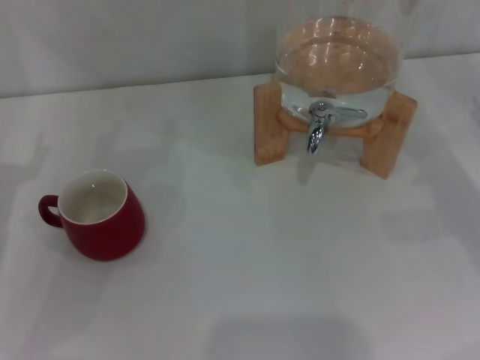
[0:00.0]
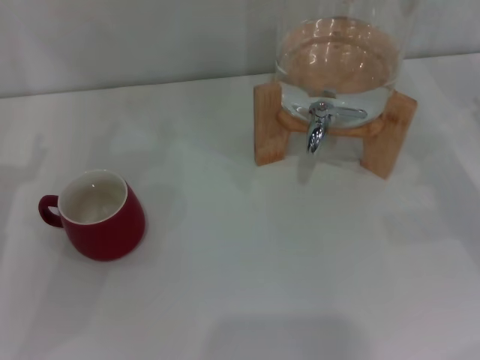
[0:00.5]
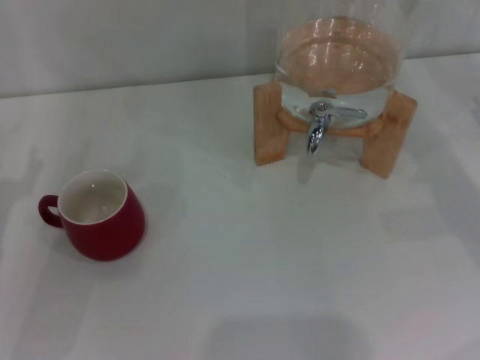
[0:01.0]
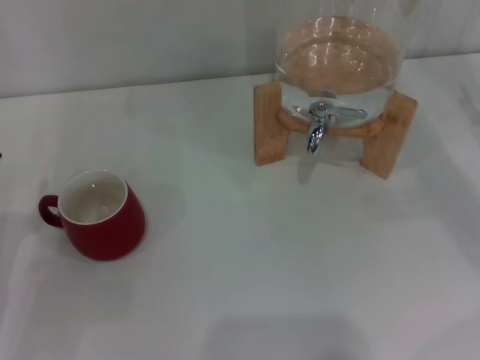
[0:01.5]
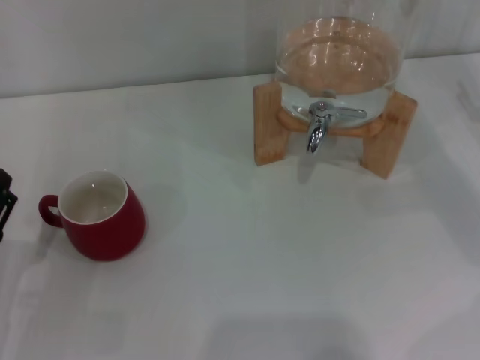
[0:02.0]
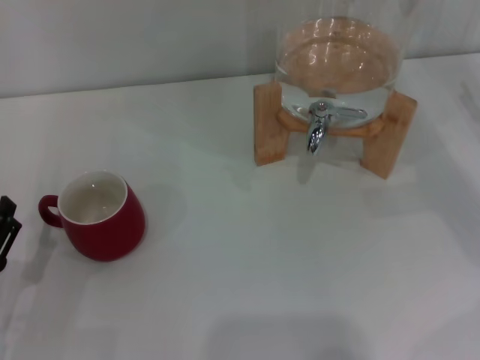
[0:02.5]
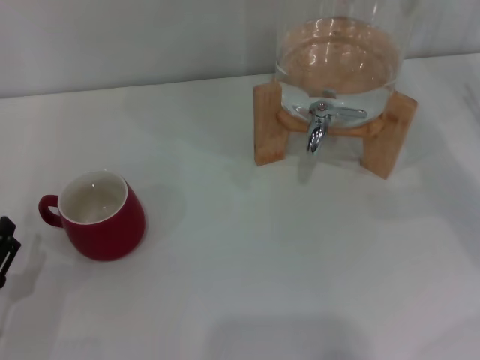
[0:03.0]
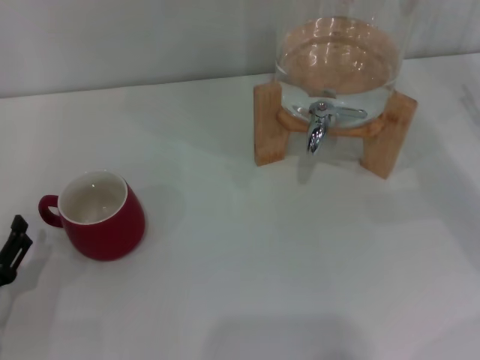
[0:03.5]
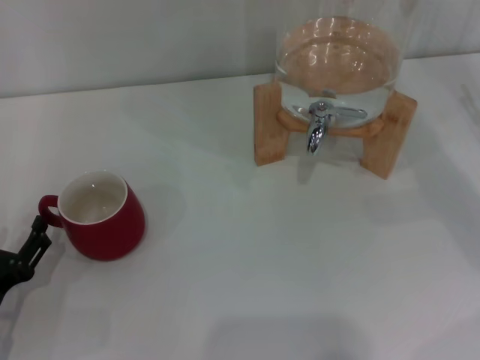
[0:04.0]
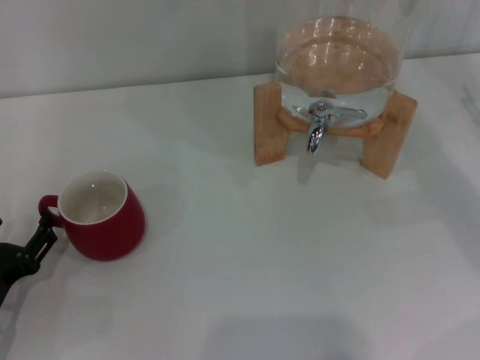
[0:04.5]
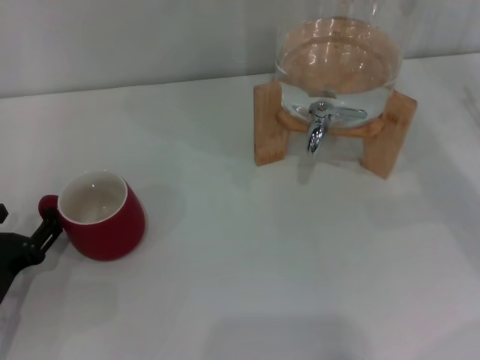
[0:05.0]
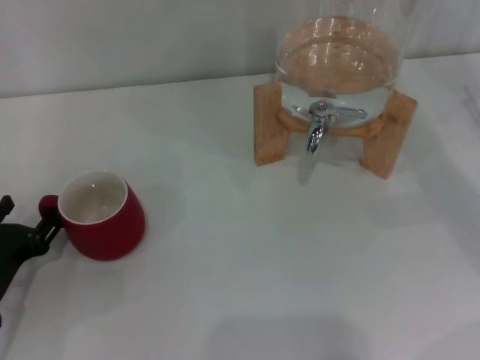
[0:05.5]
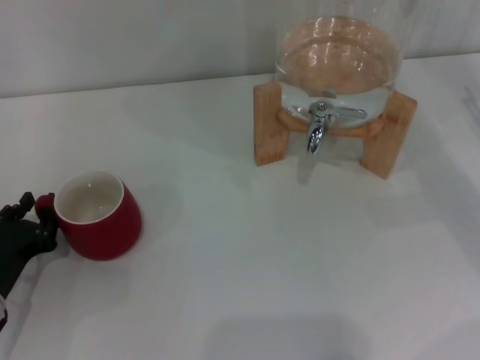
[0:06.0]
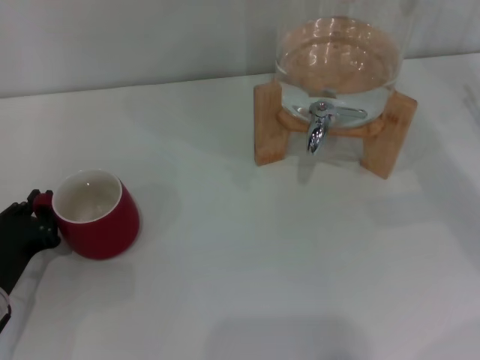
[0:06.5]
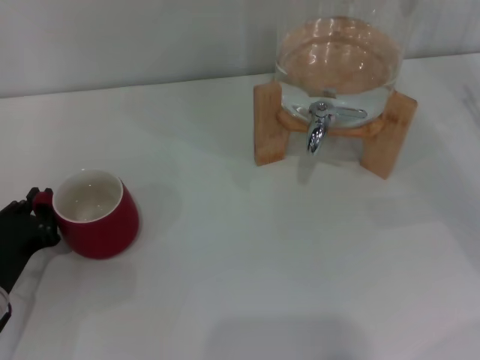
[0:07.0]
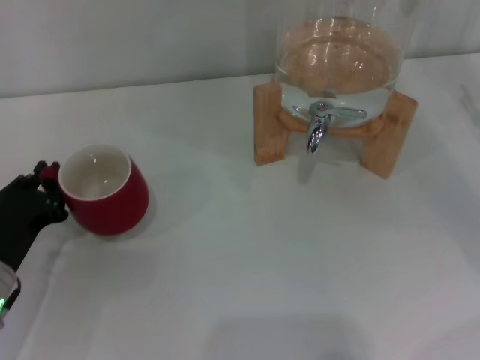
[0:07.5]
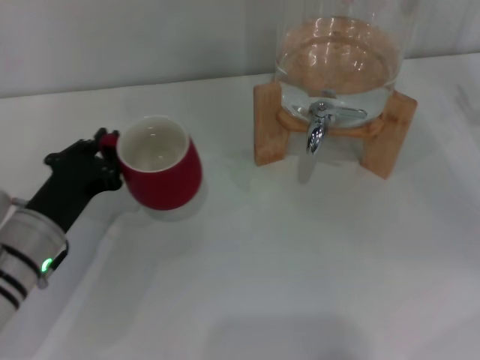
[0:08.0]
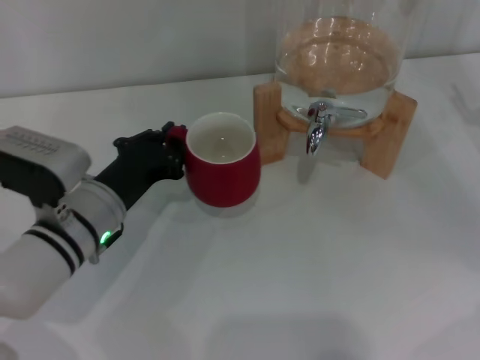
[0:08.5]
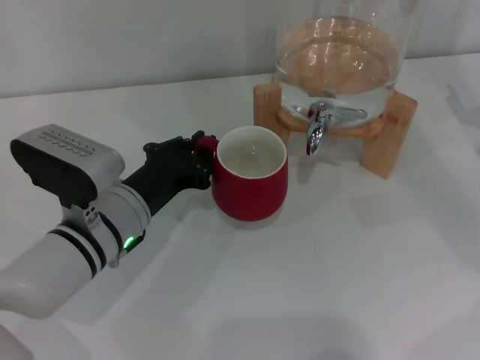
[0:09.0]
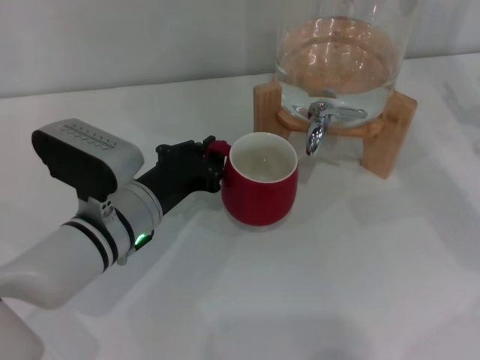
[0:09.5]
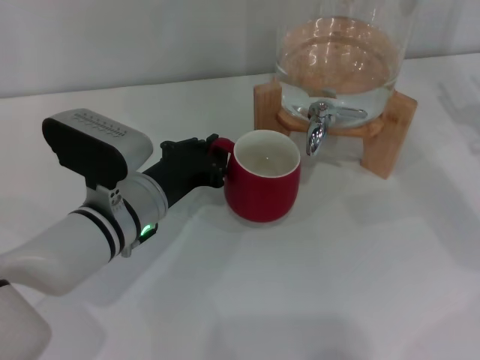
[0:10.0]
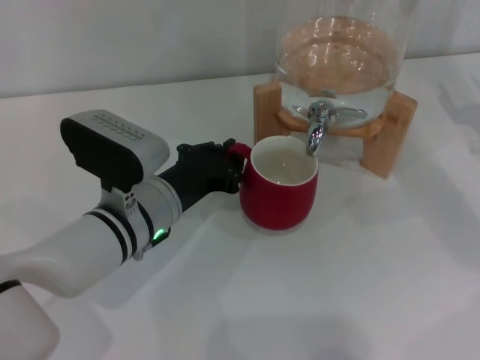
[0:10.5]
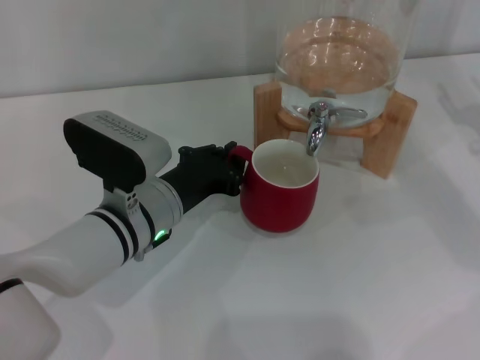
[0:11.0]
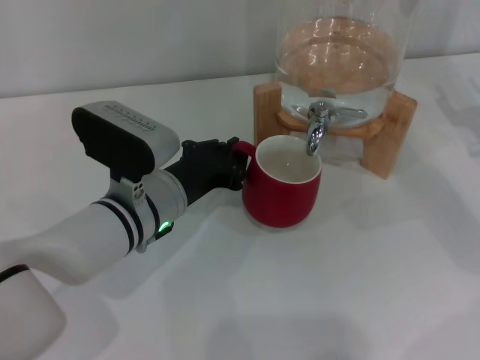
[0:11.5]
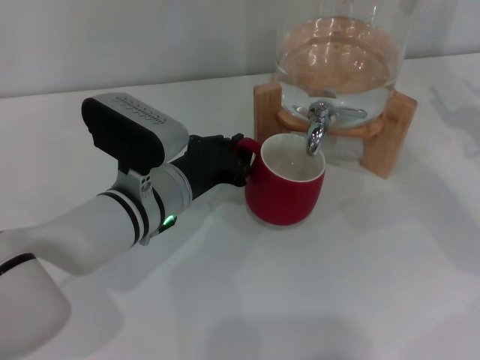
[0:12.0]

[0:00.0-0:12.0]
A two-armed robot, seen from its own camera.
Task of the whole recording: the left gripper pick up the red cup and place it horizontally under the faucet, the right gripper turn on the faucet to fill the cup, and then turn off the faucet.
0:00.0 to 0:02.0: The left gripper heads backward and downward, covering about 10 cm.
0:02.0 to 0:04.0: The grippers move only a little.
0:04.0 to 0:06.0: The left gripper closes.
0:06.0 to 0:08.0: The left gripper is displaced to the right by roughly 5 cm, and closes up.
0:08.0 to 0:10.0: The left gripper is displaced to the right by roughly 10 cm.
0:10.0 to 0:12.0: The grippers make only small movements.

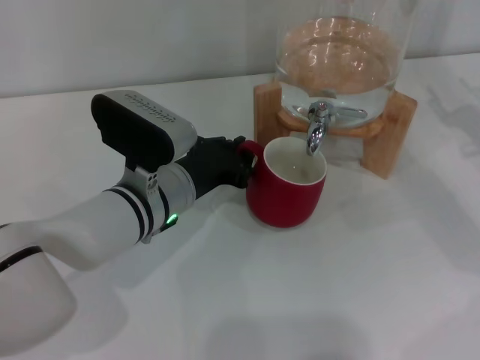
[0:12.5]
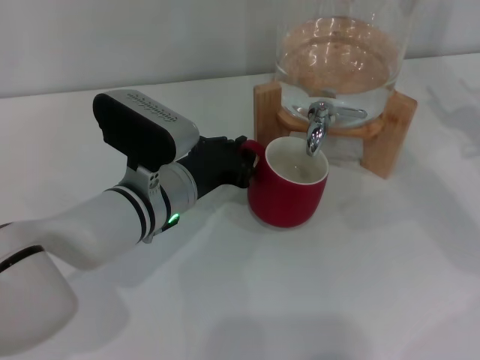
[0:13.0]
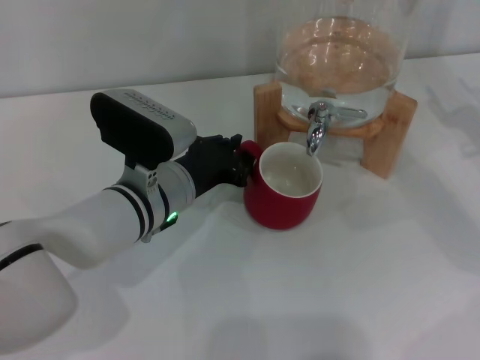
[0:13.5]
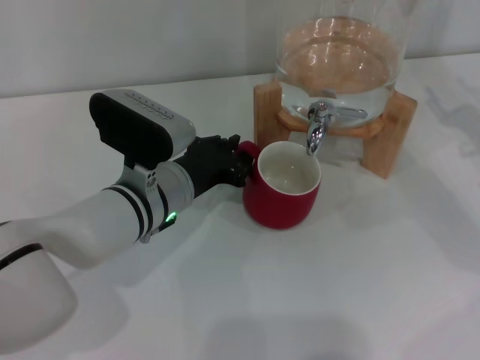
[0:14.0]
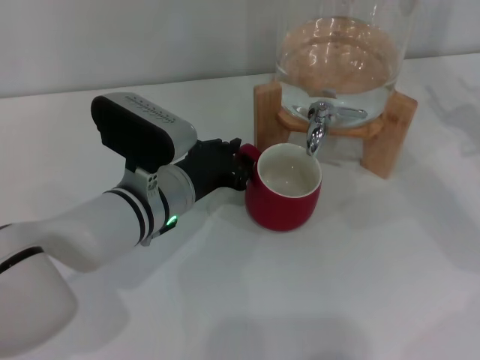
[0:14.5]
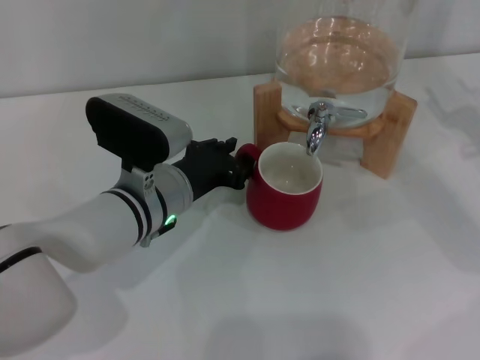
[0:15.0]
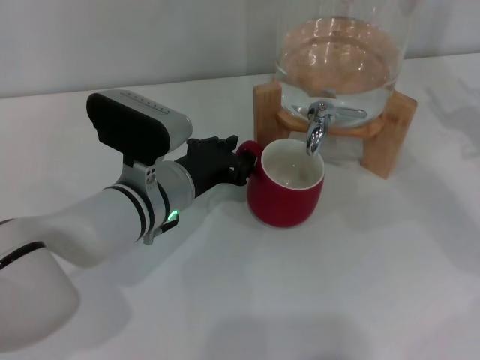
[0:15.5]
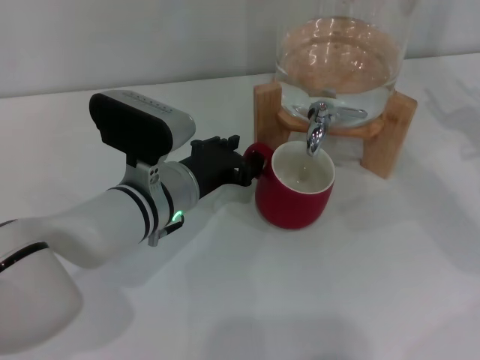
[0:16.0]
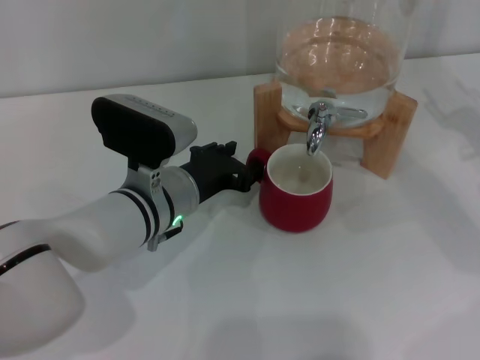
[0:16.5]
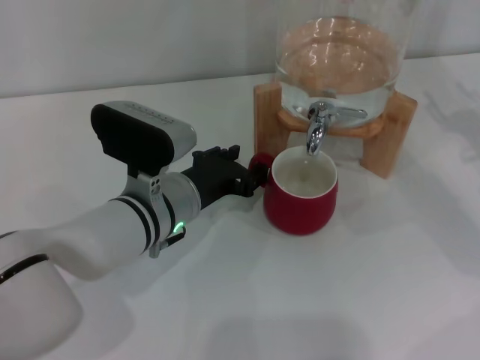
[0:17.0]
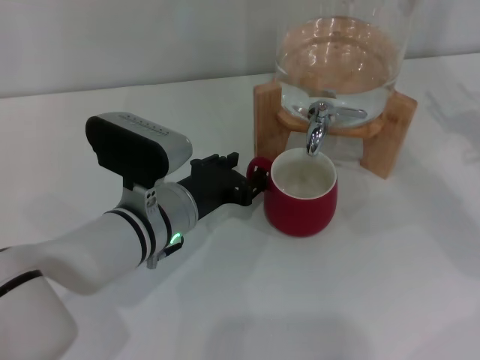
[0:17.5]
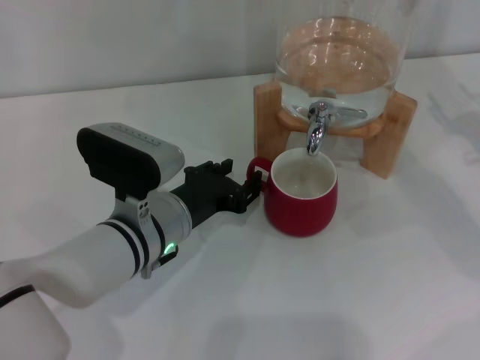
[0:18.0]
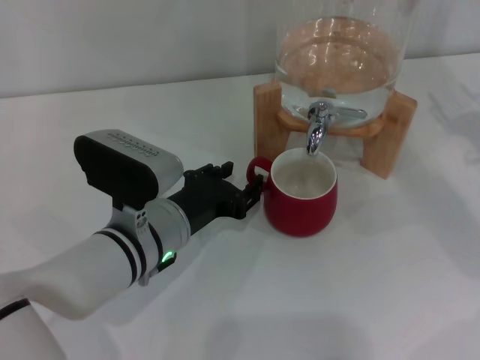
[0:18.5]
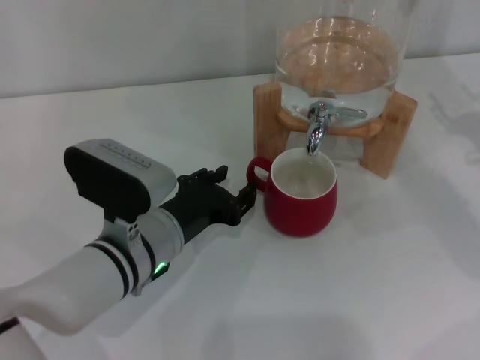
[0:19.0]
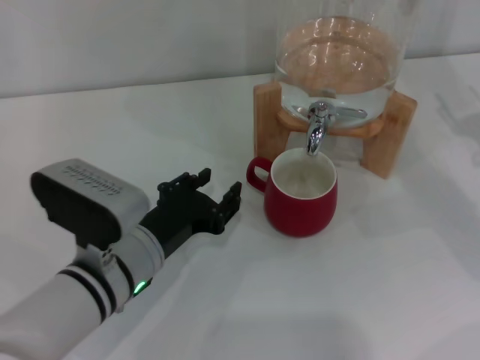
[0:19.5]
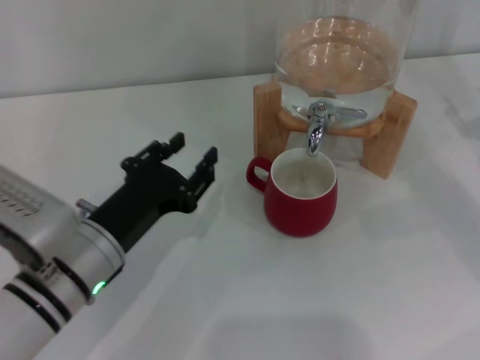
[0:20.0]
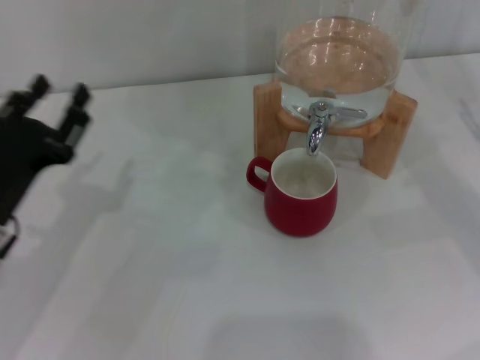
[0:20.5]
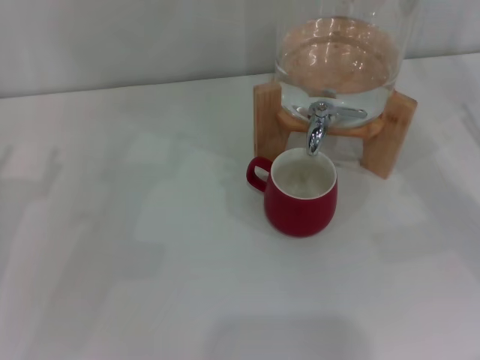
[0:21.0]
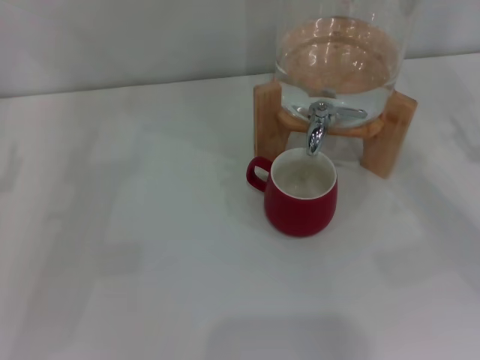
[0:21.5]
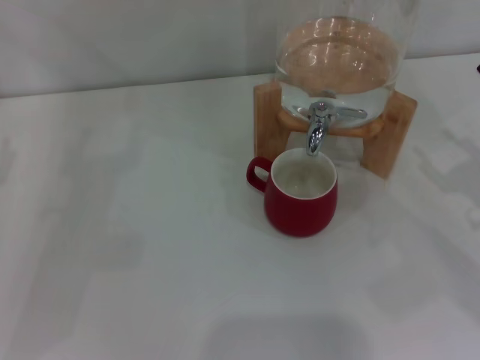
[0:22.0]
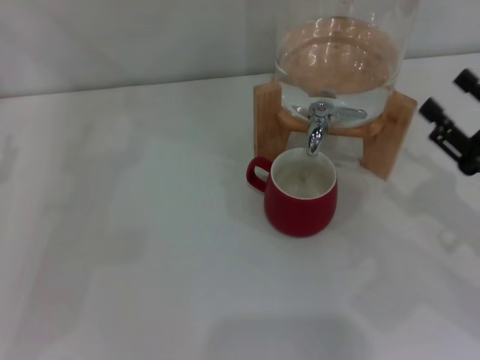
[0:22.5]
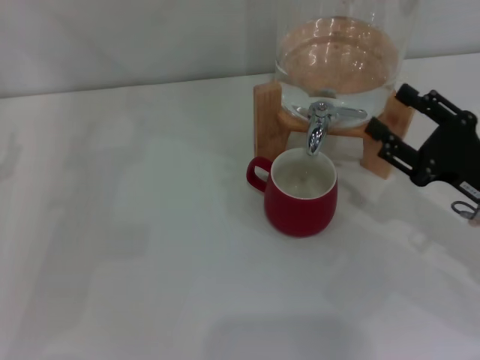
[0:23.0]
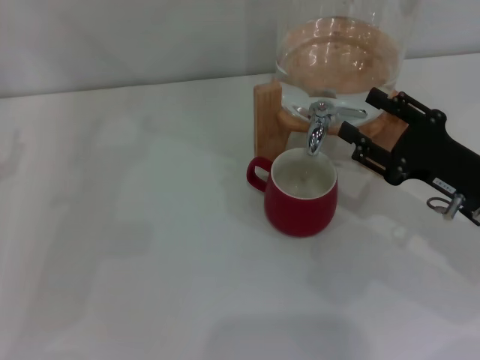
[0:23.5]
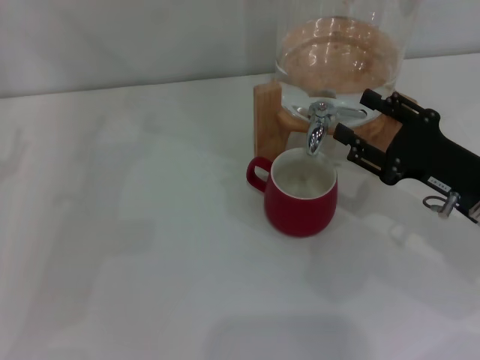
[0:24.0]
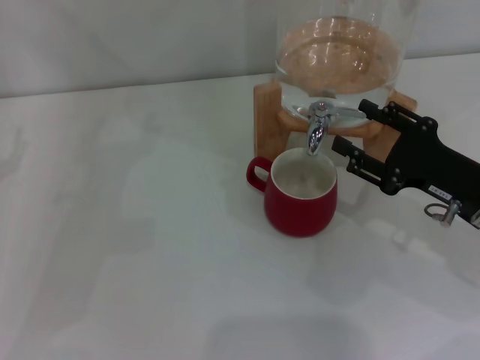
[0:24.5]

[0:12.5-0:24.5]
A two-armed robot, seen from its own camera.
Task of the whole recording: the left gripper pick up the red cup and place it horizontally under the faucet, the right gripper turn on the faucet to fill the cup, and then turn off the faucet.
Step, 0:12.5 to 0:19.5: Move the cup beneath the water dispenser nozzle with the left gripper.
0:12.5 to 0:14.5: Both grippers stay about where they are.
0:14.5 to 0:16.5: The left gripper opens.
0:16.5 to 0:18.5: The grippers stay close to where they were, moving slightly.
0:18.5 to 0:20.5: The left gripper heads to the left, covering approximately 15 cm.
0:20.5 to 0:22.5: The left gripper is displaced to the left by about 10 cm, and opens its fingers, while the right gripper shifts about 10 cm to the left and backward.
0:22.5 to 0:24.5: The right gripper changes place by roughly 5 cm.

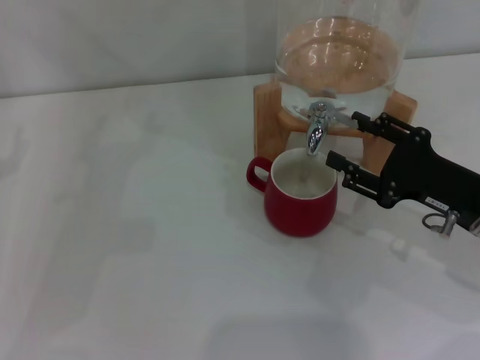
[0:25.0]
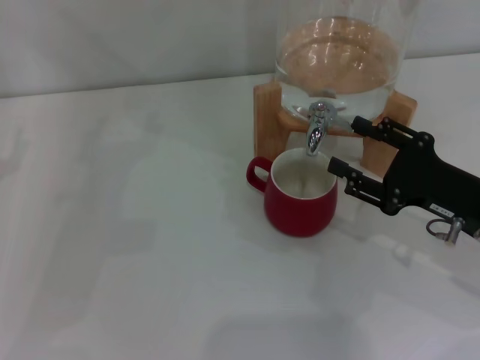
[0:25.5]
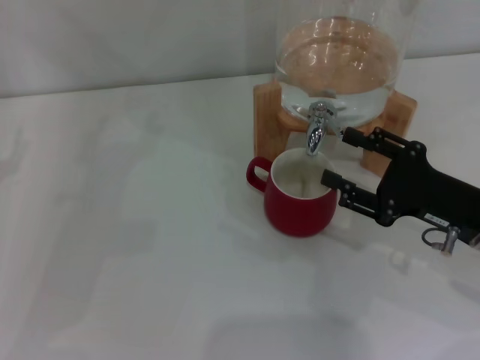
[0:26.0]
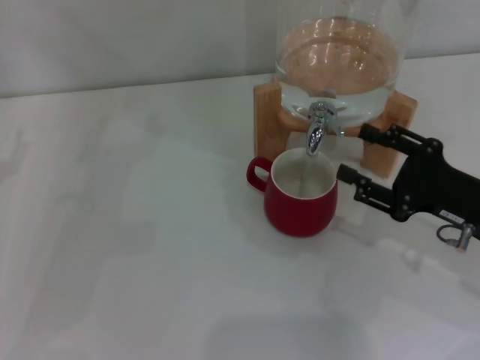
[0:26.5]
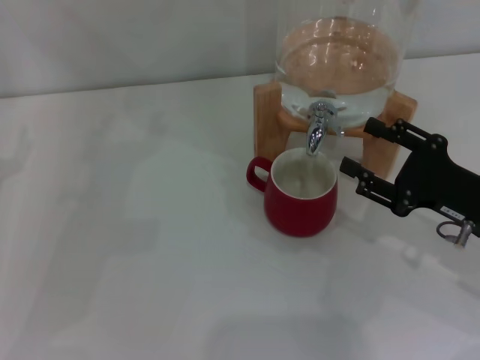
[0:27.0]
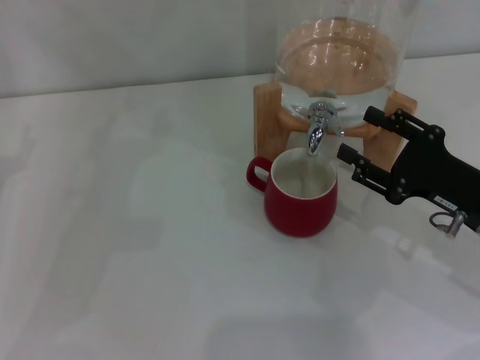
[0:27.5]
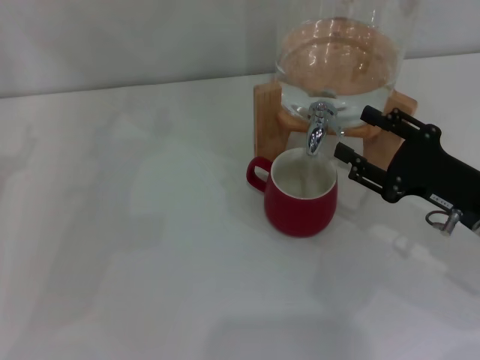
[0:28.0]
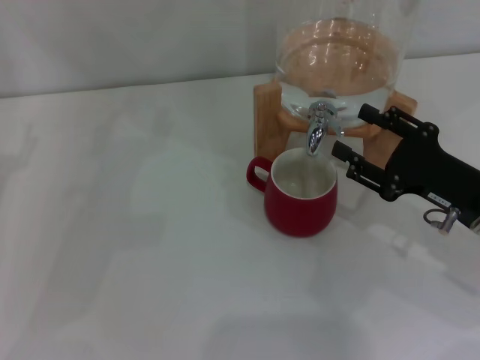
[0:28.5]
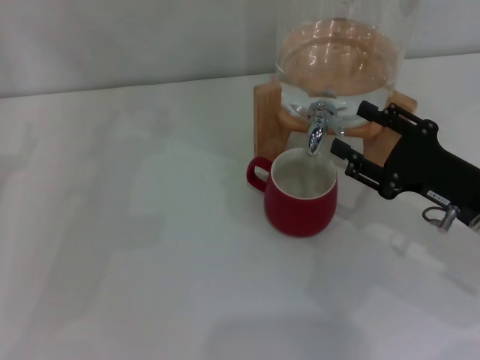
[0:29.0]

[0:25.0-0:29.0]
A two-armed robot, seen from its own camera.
Task of the whole recording: the left gripper pick up the red cup and place it horizontally under the faucet, the right gripper turn on the faucet to fill the cup, and then turn off the faucet.
0:25.0 to 0:29.0: The grippers stay close to where they were, moving slightly.
